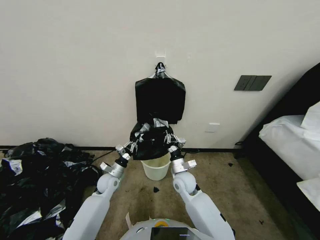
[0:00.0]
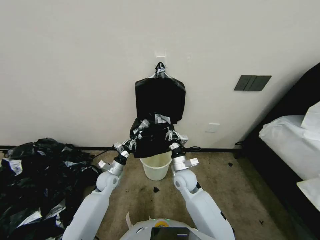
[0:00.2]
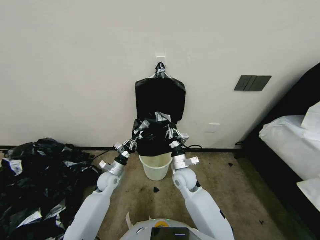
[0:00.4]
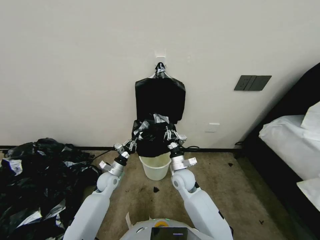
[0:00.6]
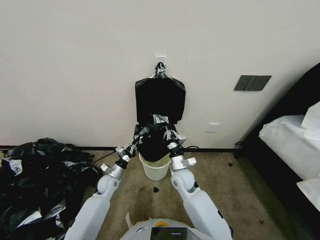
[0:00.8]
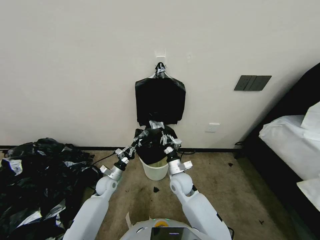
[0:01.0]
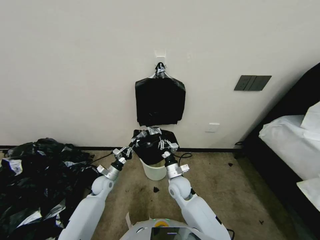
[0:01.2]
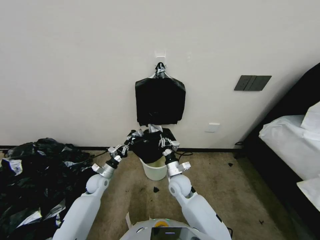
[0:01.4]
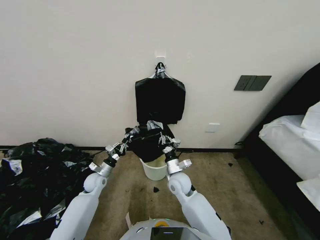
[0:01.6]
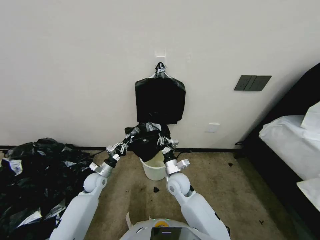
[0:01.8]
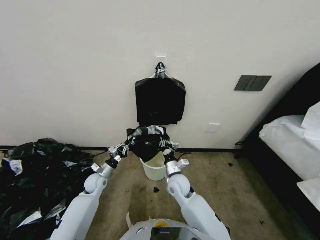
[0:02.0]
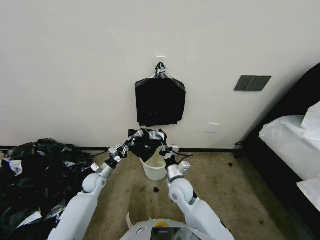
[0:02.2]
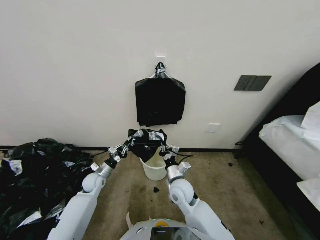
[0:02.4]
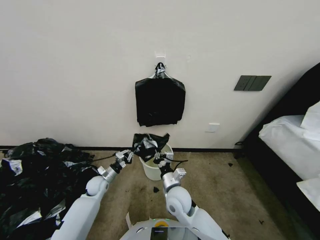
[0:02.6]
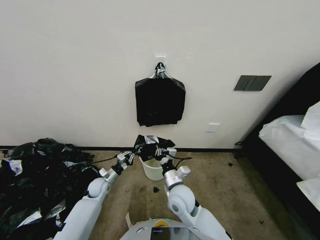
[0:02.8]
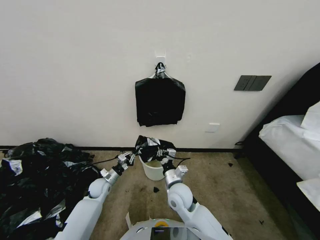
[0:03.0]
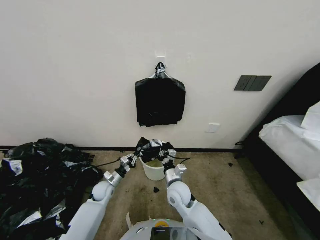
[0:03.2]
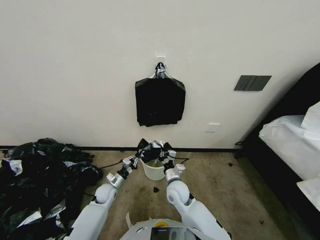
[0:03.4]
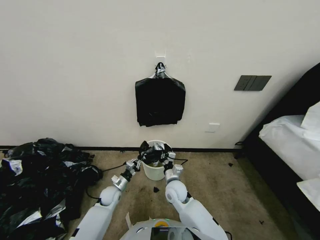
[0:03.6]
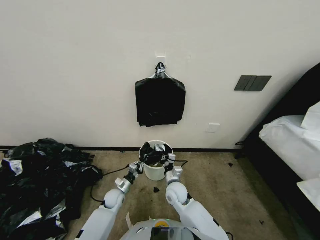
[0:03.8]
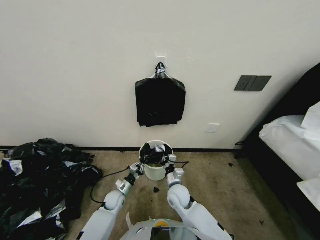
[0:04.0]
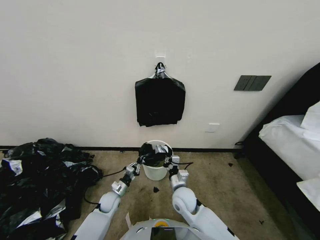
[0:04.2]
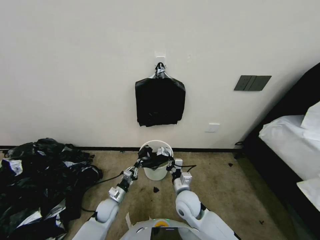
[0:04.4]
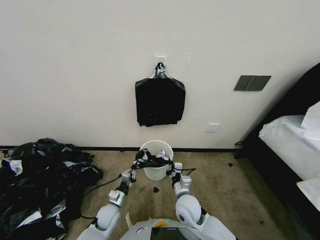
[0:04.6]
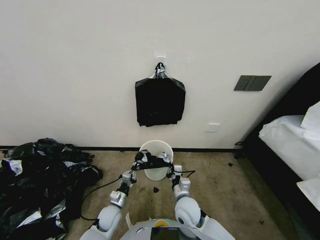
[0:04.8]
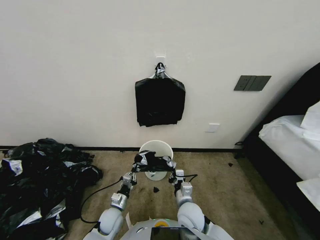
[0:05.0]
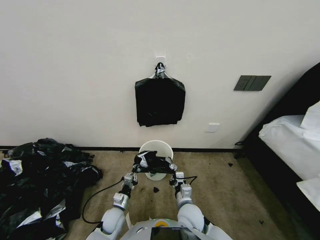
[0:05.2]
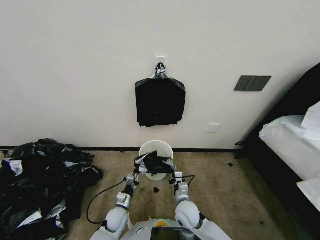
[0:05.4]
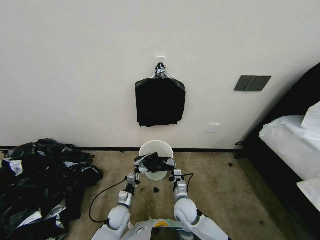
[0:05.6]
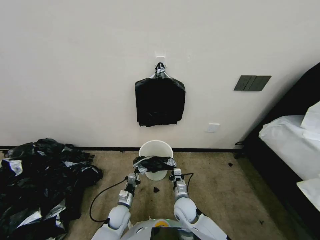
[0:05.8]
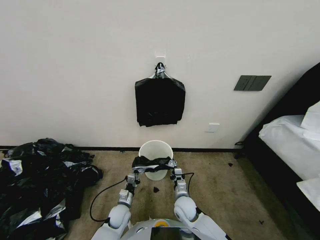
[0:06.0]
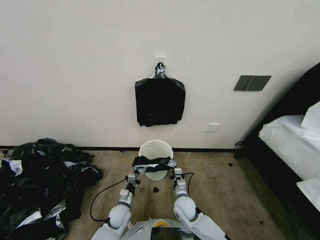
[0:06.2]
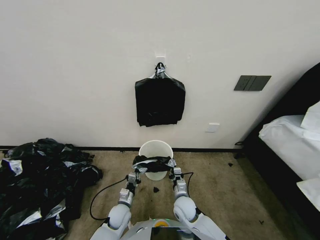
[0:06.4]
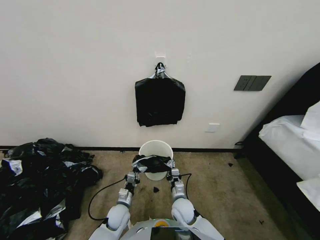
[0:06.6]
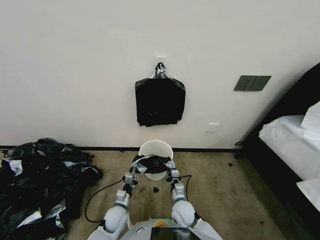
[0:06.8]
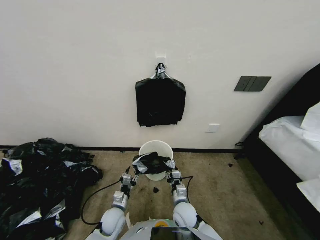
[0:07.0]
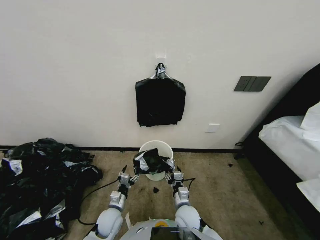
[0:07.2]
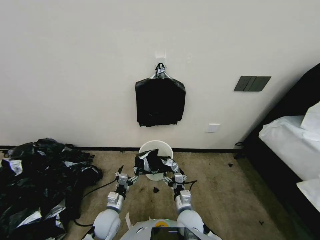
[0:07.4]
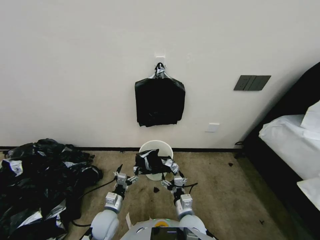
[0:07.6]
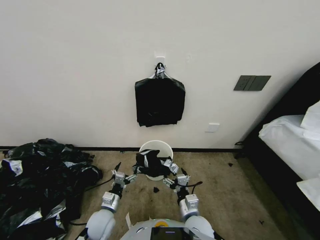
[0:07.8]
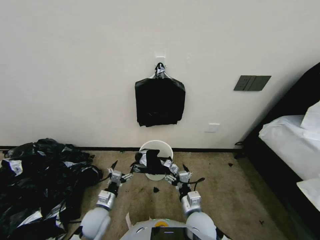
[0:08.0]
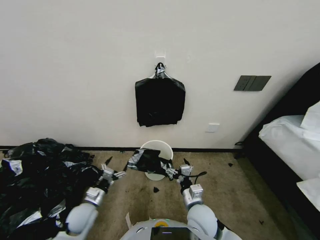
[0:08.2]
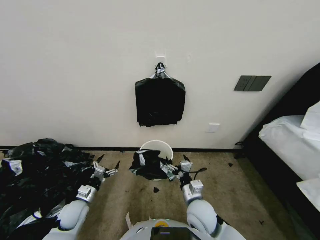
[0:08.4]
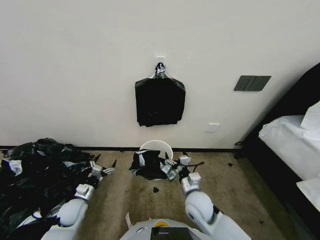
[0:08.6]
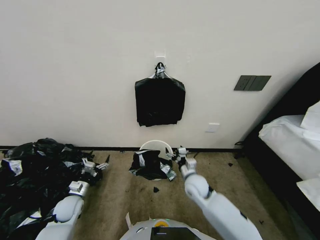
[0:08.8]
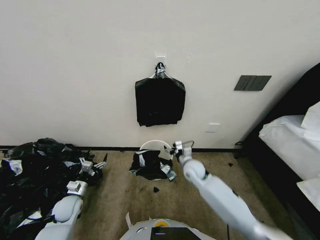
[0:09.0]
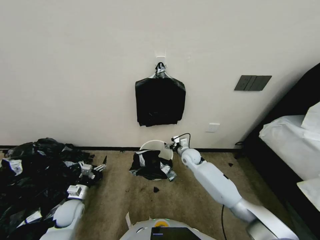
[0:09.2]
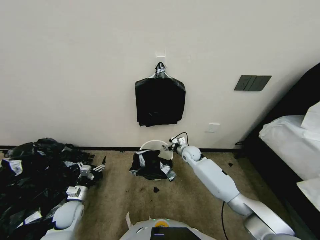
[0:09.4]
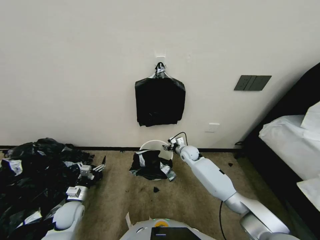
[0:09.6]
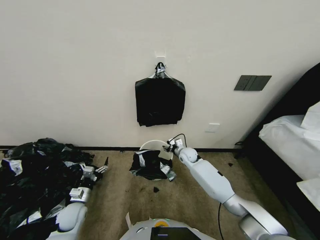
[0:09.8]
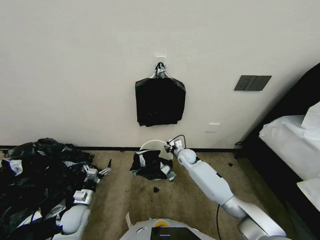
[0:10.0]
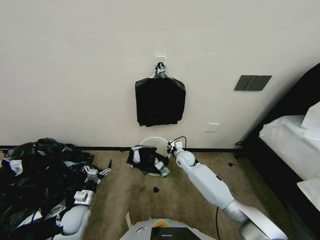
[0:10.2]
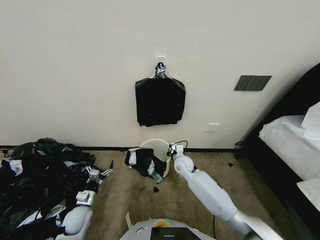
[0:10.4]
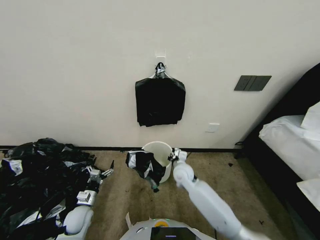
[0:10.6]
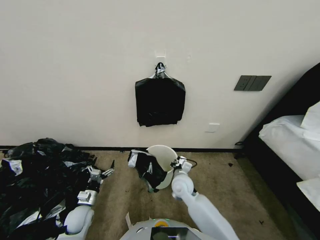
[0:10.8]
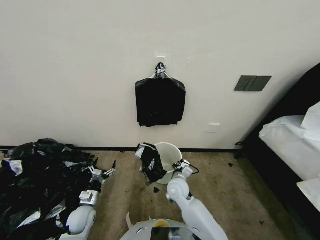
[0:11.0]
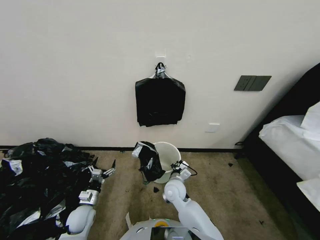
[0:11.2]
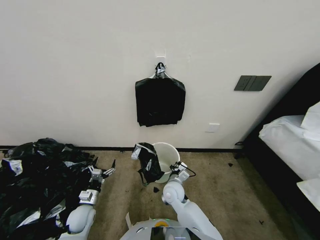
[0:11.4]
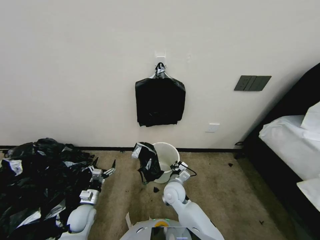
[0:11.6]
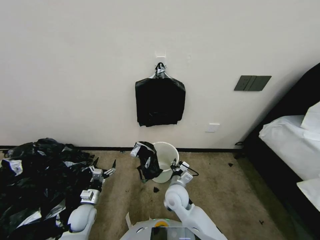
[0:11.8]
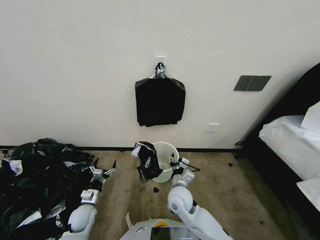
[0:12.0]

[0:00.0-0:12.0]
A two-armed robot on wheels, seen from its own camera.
Task of the whole recording: Place a trash bag onto the trash bin.
0:00.0 to 0:01.6: The left gripper travels to the left by approximately 5 cm.
0:01.6 to 0:03.0: The right gripper travels backward by about 5 cm.
0:03.0 to 0:04.4: The left gripper is displaced backward, to the right and downward by about 10 cm, while the right gripper shifts some 5 cm downward.
0:04.4 to 0:06.0: The right gripper heads downward, covering approximately 10 cm, while the left gripper shifts approximately 5 cm to the right.
0:06.0 to 0:07.6: The right gripper goes roughly 5 cm backward, and opens up. Meanwhile the left gripper heads upward, covering roughly 10 cm, and opens up.
0:07.6 to 0:09.0: The right gripper travels forward by roughly 20 cm. The left gripper shifts about 20 cm to the left.
0:09.0 to 0:10.4: The right gripper goes some 10 cm forward, and closes its fingers. Meanwhile the left gripper moves roughly 5 cm.
0:10.4 to 0:12.0: The right gripper moves backward, approximately 15 cm, and opens up.

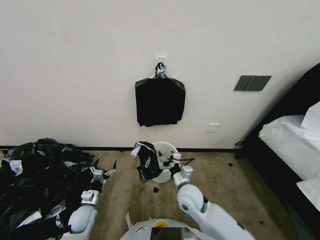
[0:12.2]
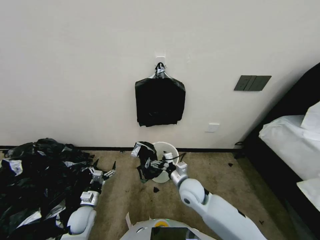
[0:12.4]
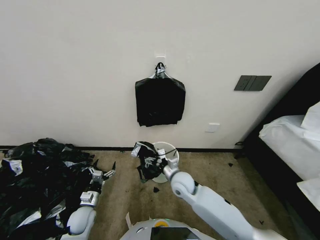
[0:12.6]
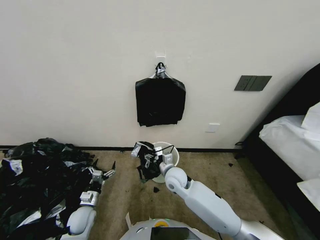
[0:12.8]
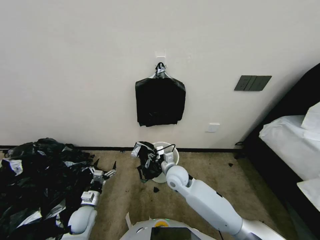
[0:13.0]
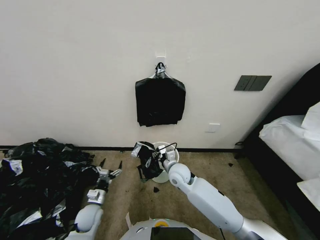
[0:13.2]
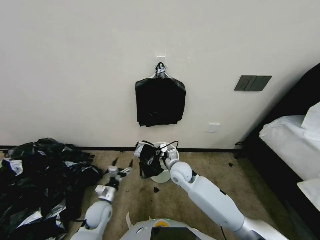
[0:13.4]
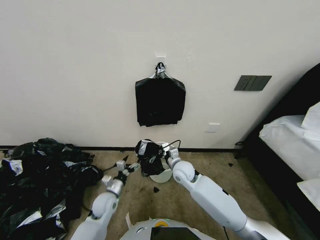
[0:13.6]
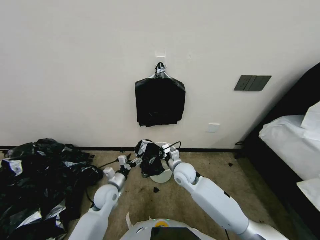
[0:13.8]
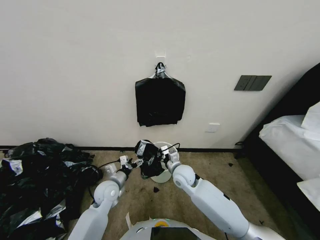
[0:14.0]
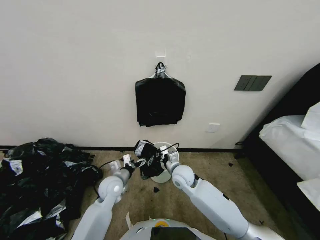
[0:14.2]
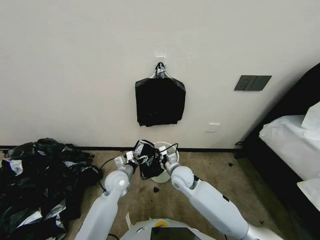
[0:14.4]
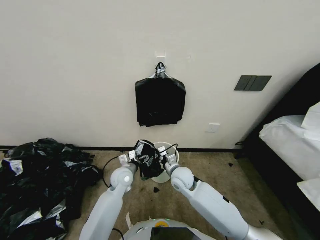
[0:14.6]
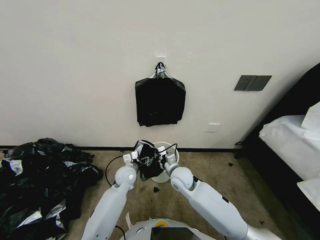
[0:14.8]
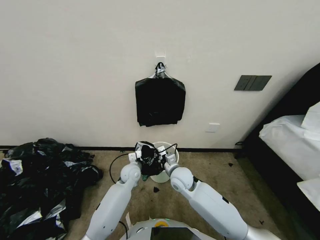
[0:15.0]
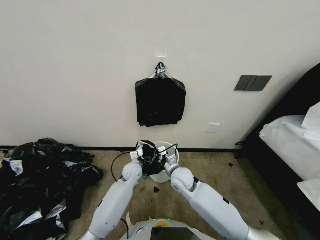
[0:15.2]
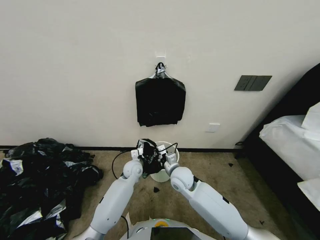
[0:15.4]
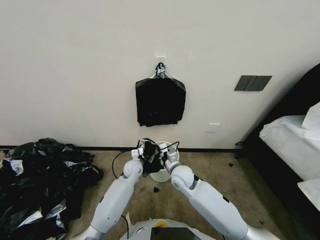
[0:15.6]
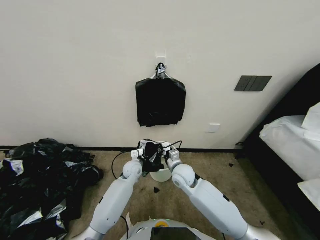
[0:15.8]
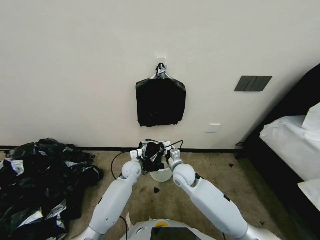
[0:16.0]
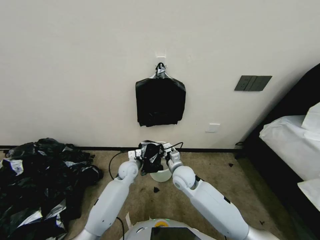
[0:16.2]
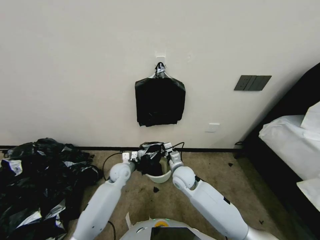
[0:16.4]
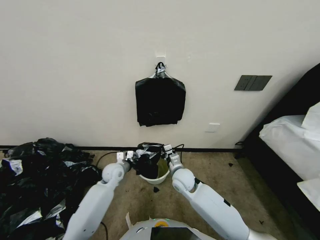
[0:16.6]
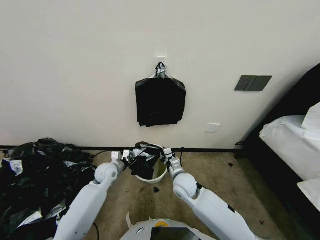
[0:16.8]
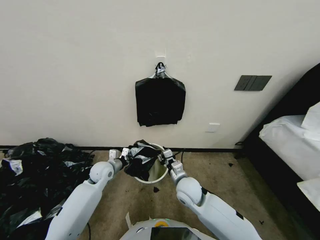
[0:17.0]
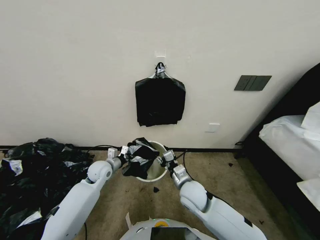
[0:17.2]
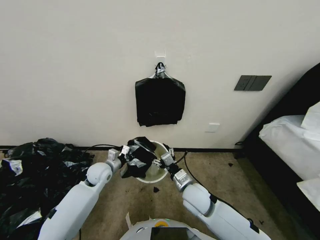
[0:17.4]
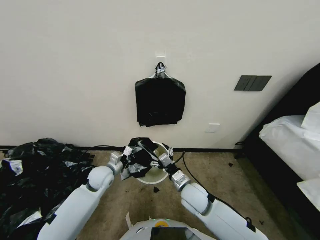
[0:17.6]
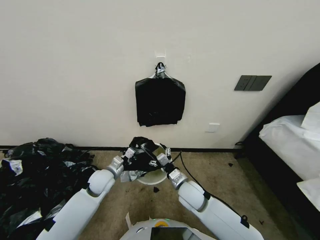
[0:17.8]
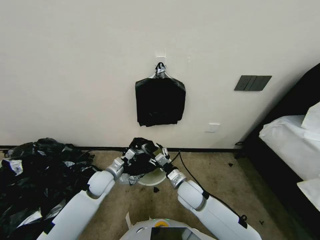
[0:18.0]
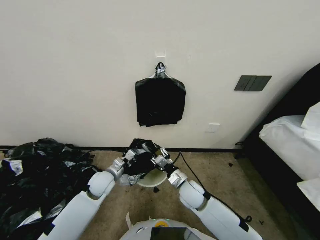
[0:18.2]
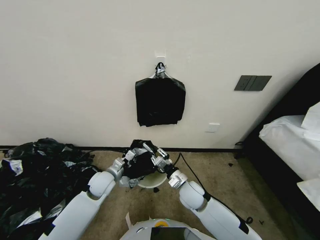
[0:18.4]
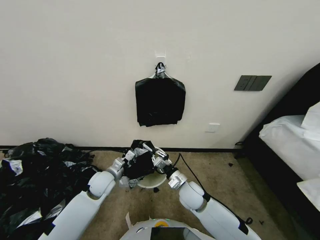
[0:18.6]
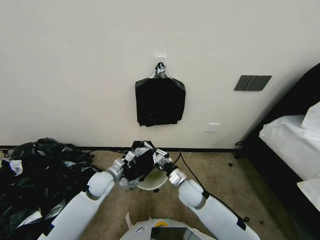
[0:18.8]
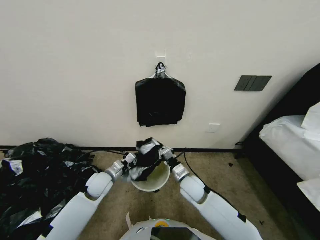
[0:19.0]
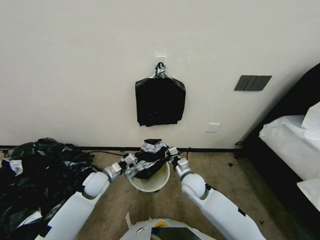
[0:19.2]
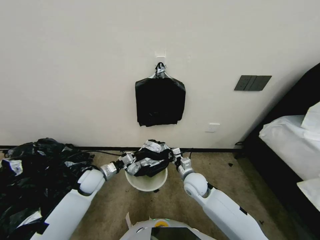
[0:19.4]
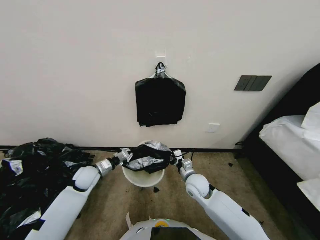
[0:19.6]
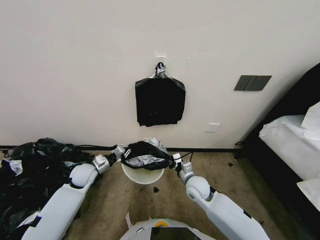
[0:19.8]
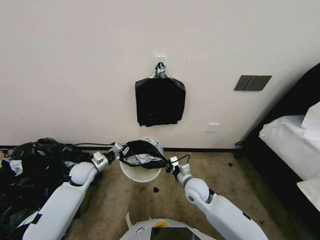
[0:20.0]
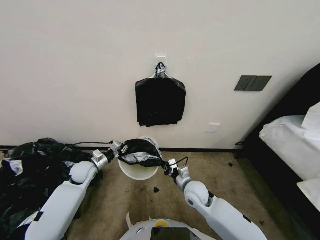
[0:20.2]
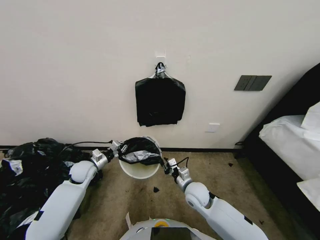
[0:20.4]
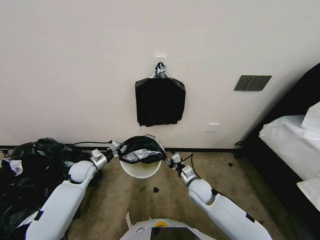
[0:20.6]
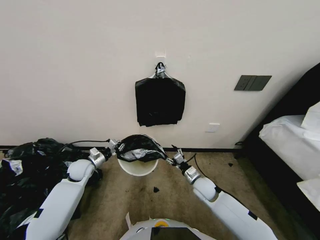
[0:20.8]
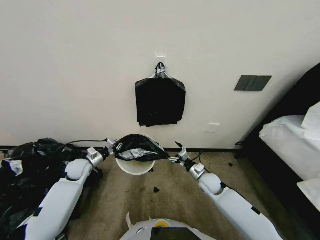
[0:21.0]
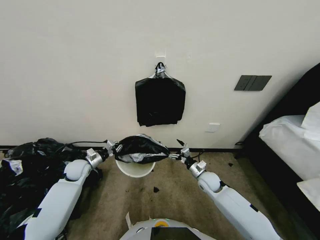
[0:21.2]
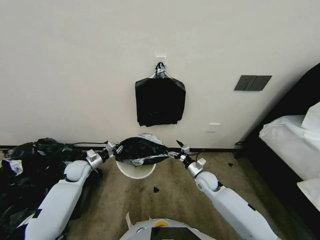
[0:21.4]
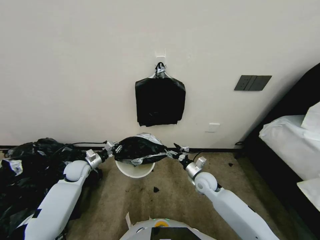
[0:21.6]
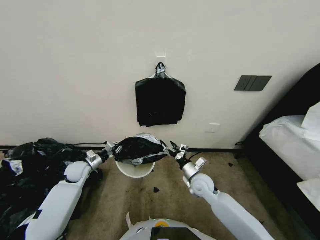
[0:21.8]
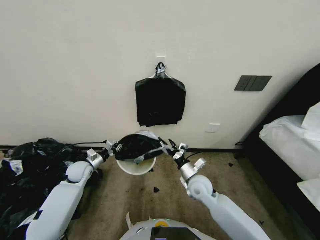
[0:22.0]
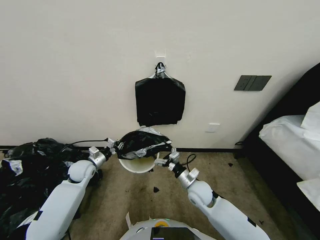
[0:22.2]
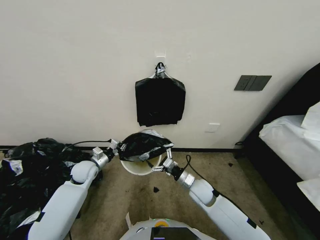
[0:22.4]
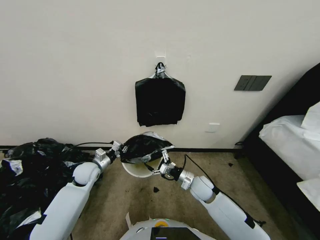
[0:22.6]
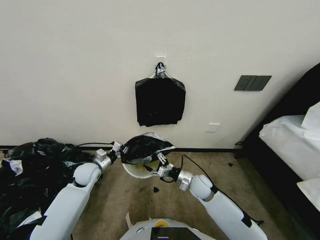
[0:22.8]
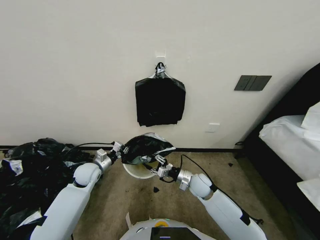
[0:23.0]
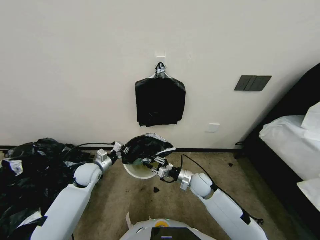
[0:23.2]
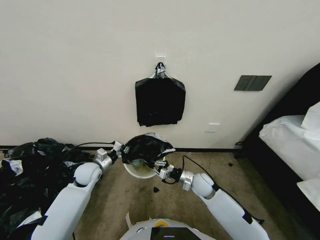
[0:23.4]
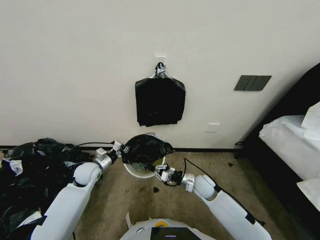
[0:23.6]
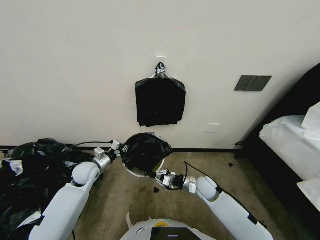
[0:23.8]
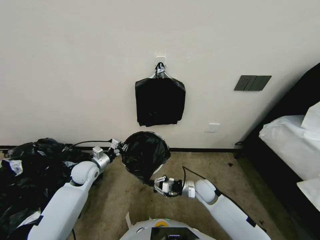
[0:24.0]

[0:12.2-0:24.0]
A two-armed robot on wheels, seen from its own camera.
Task of the whole recording: Place a trash bag onto the trash bin.
0:12.2 to 0:13.6: The right gripper heads forward, covering roughly 10 cm, and closes its fingers. The left gripper moves to the right, some 10 cm.
0:13.6 to 0:15.2: The left gripper is displaced forward and to the right by about 20 cm.
0:15.2 to 0:16.6: The left gripper moves to the left, roughly 5 cm, and closes up.
0:16.6 to 0:18.2: Both grippers travel together backward, approximately 5 cm. The right gripper opens up.
0:18.2 to 0:19.6: The right gripper shifts by approximately 5 cm, and closes up, while the left gripper travels to the left by approximately 5 cm.
0:19.6 to 0:21.0: The right gripper heads to the right and downward, covering approximately 10 cm, and opens up. The left gripper is displaced to the left by approximately 5 cm.
0:21.0 to 0:22.6: The right gripper changes place by approximately 5 cm, while the left gripper moves about 5 cm.
0:22.6 to 0:24.0: The right gripper closes up.
